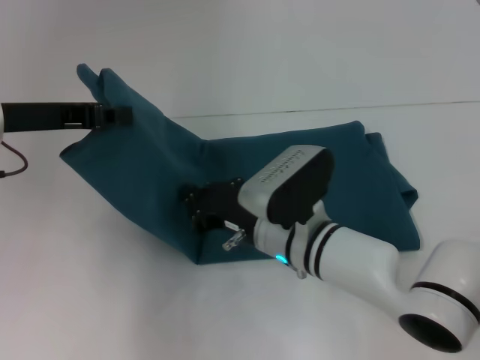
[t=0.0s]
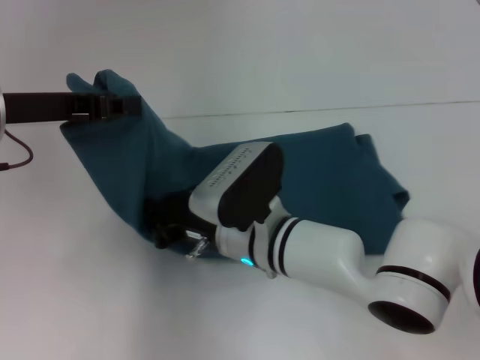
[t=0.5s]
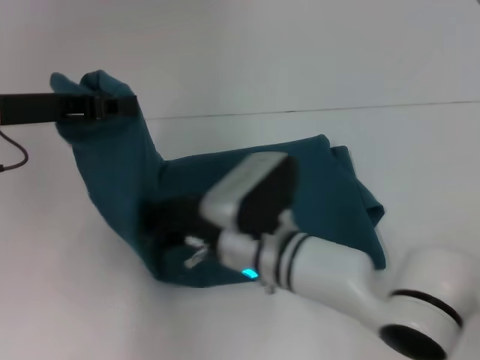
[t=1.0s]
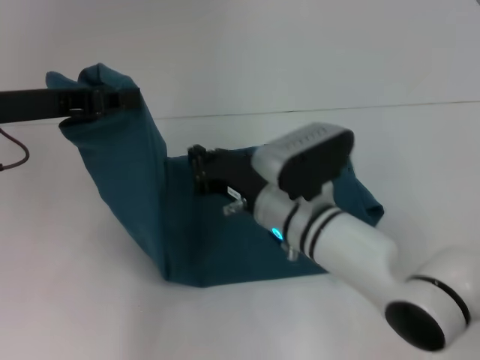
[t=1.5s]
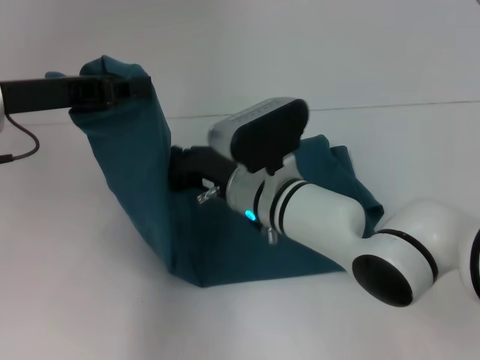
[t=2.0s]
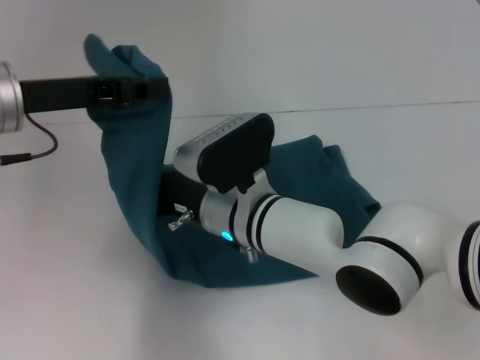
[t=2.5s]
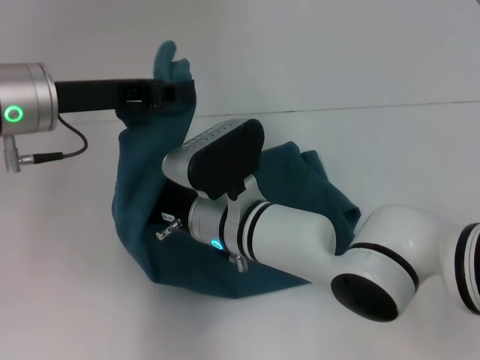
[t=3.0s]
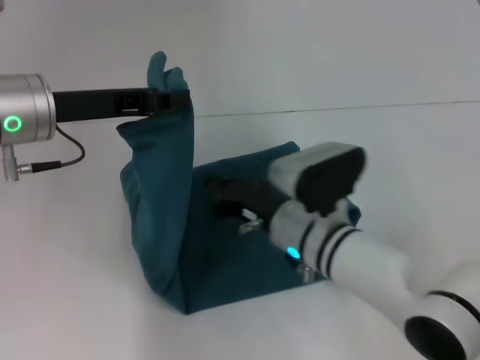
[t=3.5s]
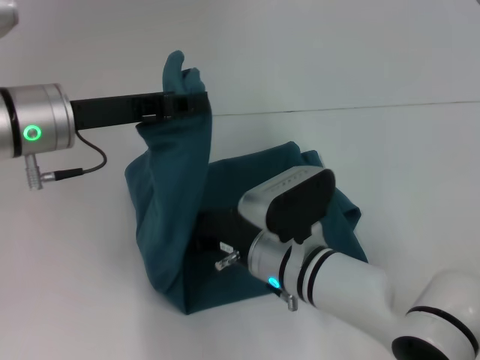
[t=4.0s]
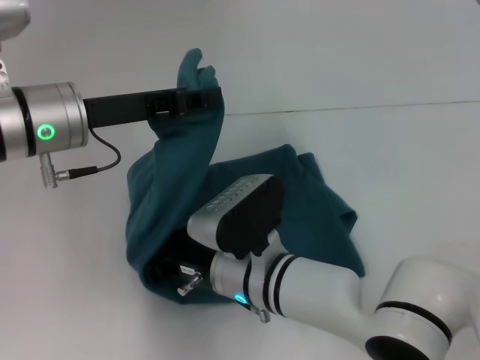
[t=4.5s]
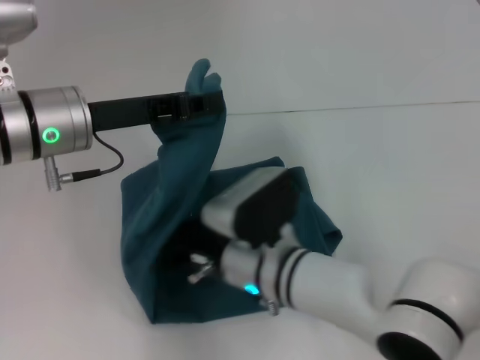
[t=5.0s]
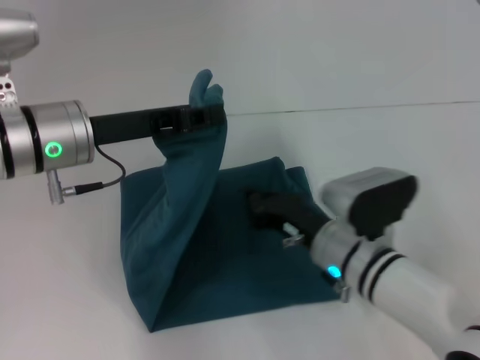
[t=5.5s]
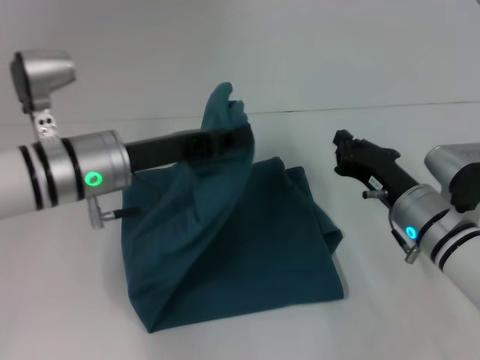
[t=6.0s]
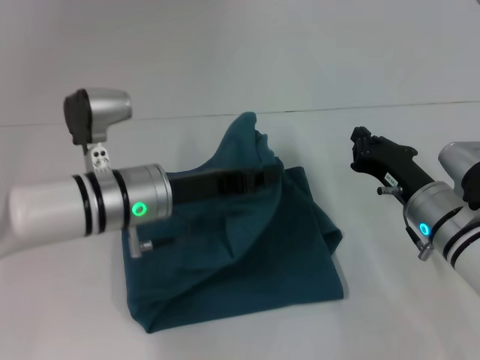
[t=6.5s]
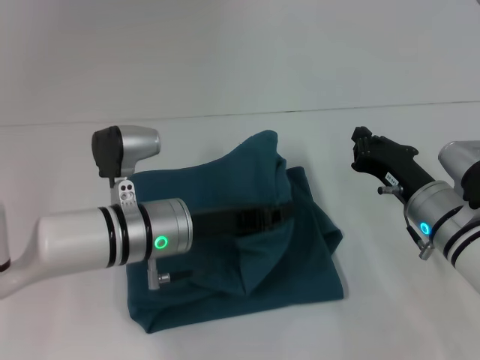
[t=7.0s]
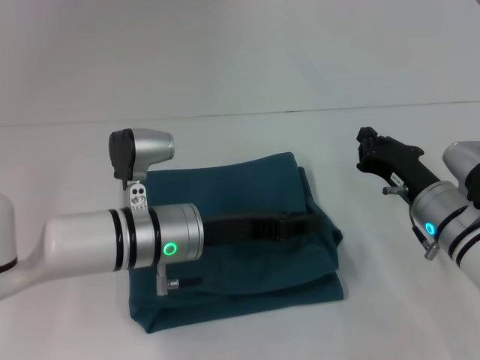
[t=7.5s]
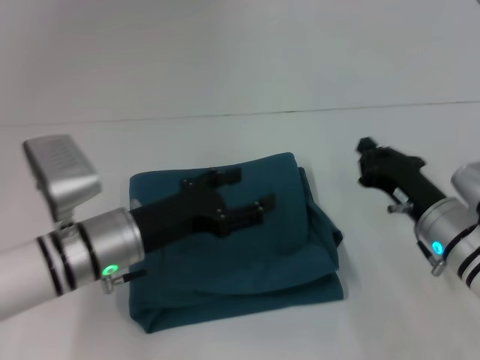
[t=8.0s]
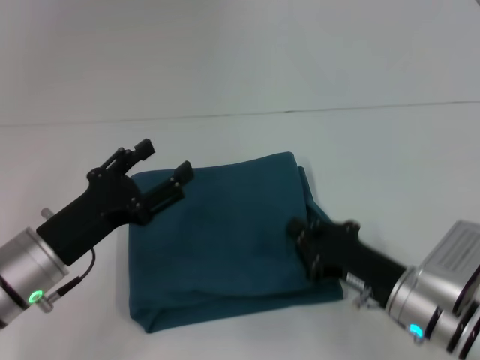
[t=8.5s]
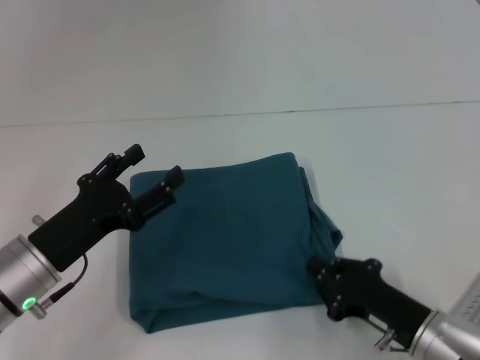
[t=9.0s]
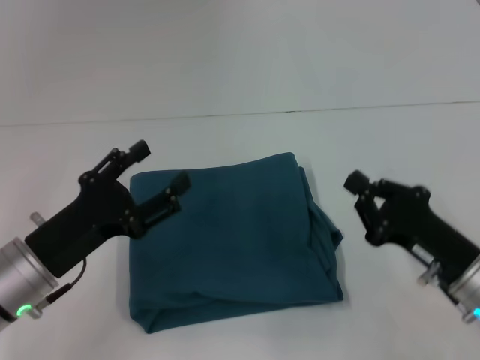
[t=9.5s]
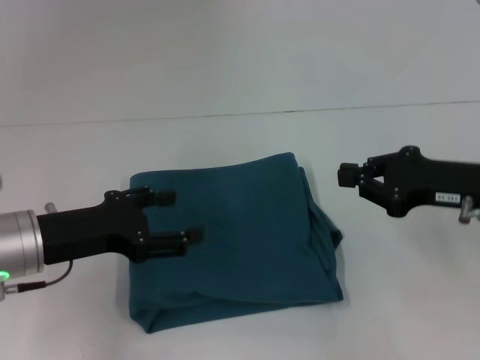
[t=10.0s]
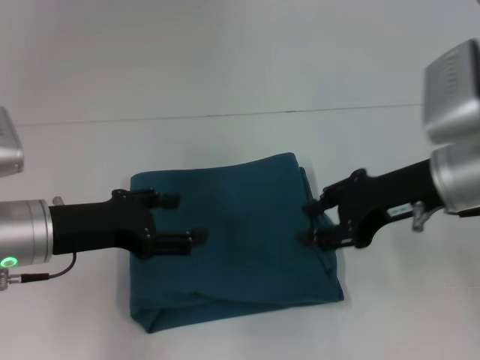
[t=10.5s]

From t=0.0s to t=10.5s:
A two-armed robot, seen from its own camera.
Step, from t=0.0s to t=5.0s: Press the middle of the clothes with your right hand.
Step, from t=5.5s to t=8.0s: Fold the clothes to the left.
From t=0.0s to t=2.0s: The right gripper ends up roughly 5 cm from where it was.
From t=2.0s to t=4.0s: The right gripper moves backward, about 5 cm; the left gripper shifts by approximately 5 cm.
From t=4.0s to t=6.5s: The right gripper heads to the right, covering some 15 cm; the left gripper travels downward and to the right by approximately 10 cm.
From t=6.5s to t=8.5s: The right gripper heads backward, covering approximately 10 cm. The left gripper heads to the left and backward, covering some 10 cm, and opens.
From t=8.5s to t=10.5s: The right gripper goes some 20 cm upward and forward, while the left gripper is displaced upward by some 5 cm.

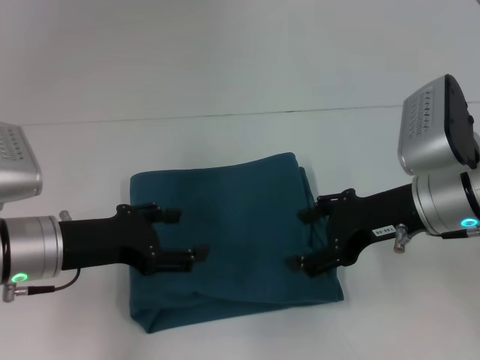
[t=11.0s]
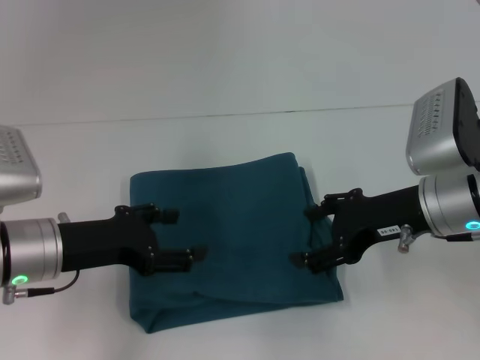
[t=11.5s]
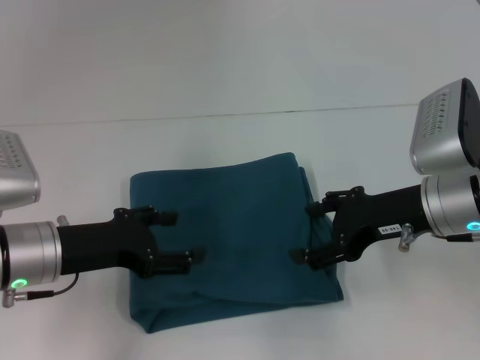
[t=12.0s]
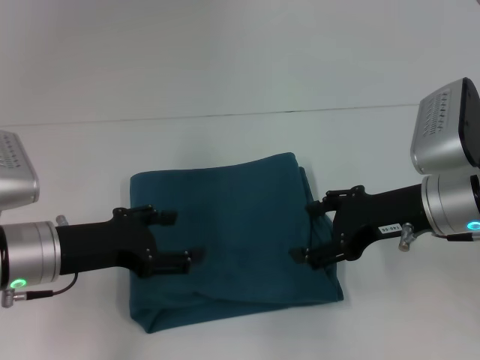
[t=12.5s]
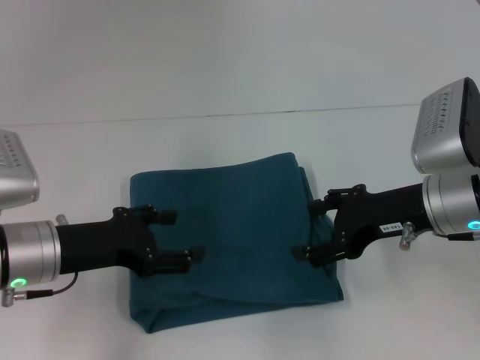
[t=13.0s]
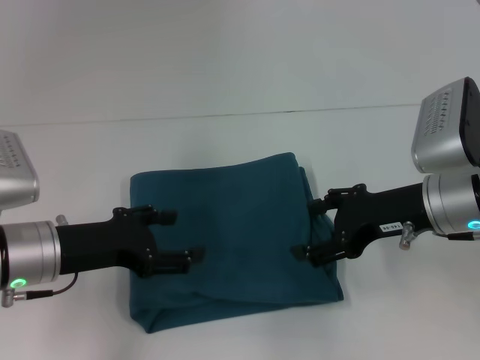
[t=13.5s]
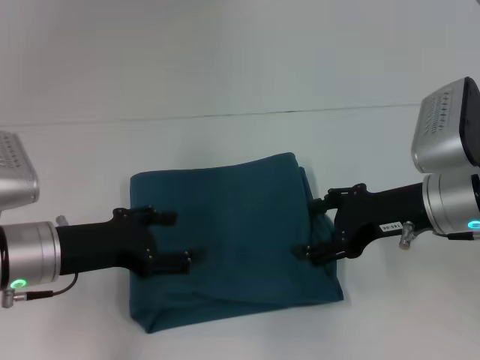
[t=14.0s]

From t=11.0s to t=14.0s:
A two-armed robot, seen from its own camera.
From t=11.0s to t=12.5s: The two grippers keep their place.
From t=12.5s to t=14.0s: Both grippers stay about where they are.

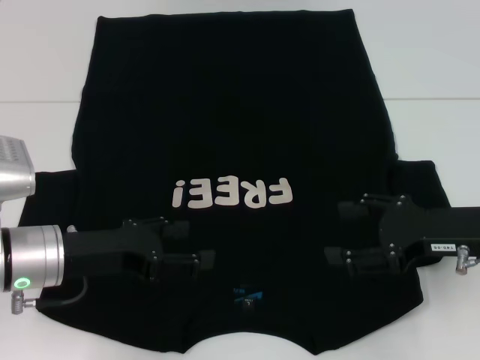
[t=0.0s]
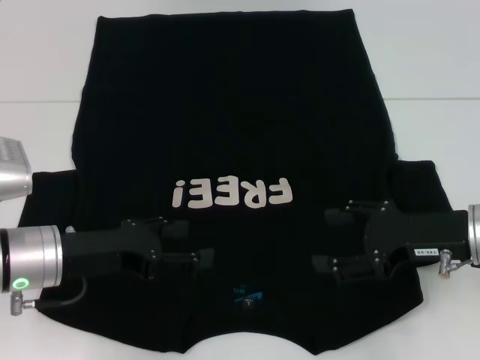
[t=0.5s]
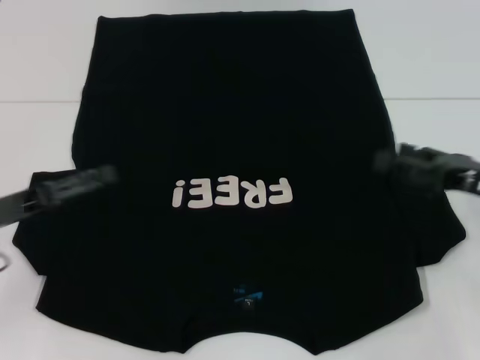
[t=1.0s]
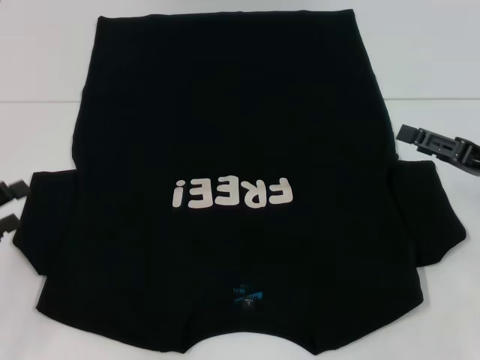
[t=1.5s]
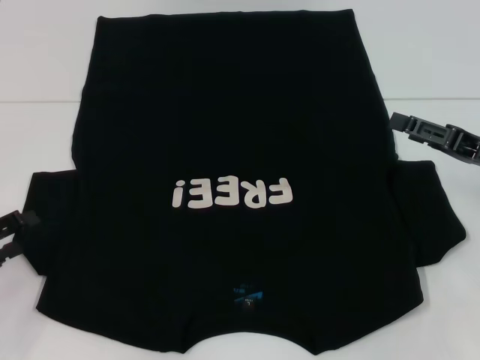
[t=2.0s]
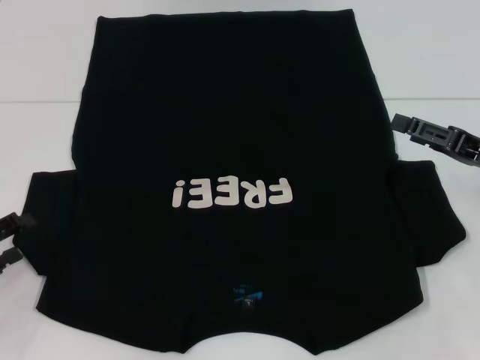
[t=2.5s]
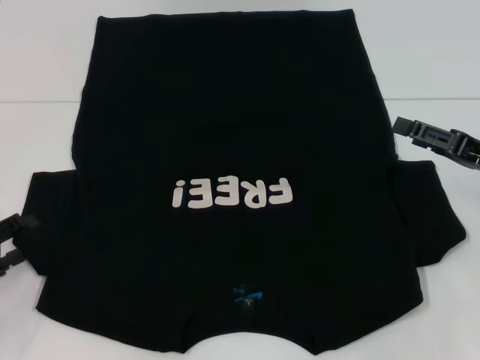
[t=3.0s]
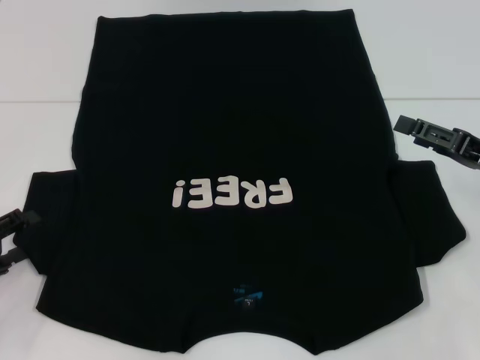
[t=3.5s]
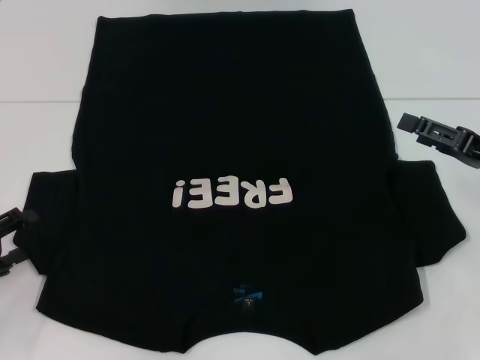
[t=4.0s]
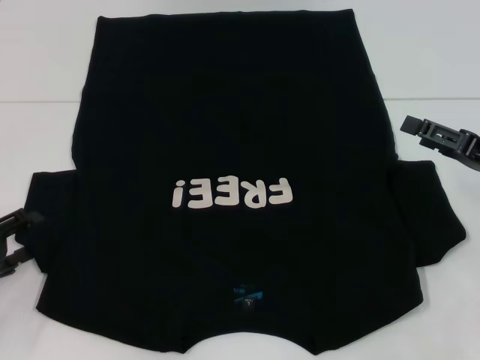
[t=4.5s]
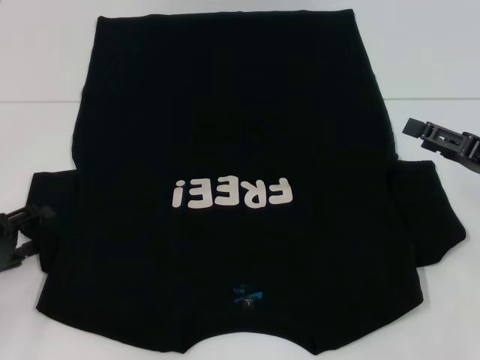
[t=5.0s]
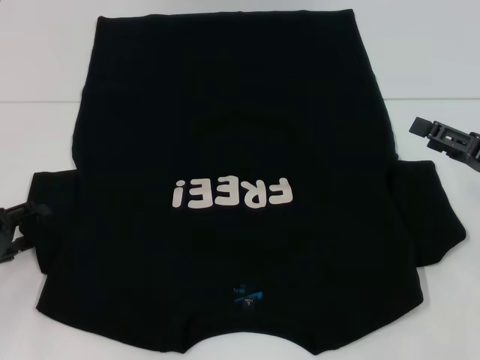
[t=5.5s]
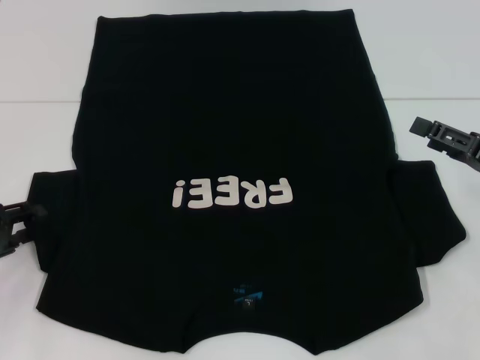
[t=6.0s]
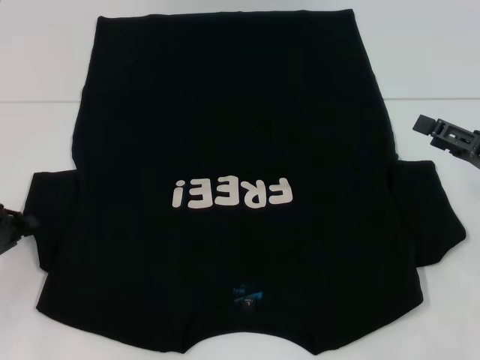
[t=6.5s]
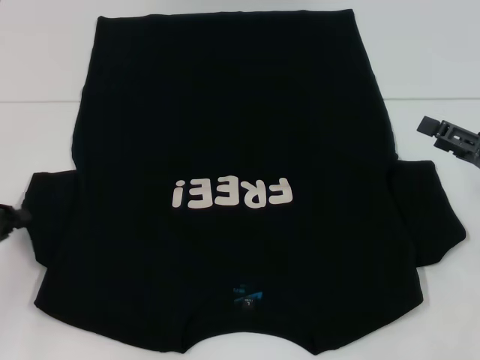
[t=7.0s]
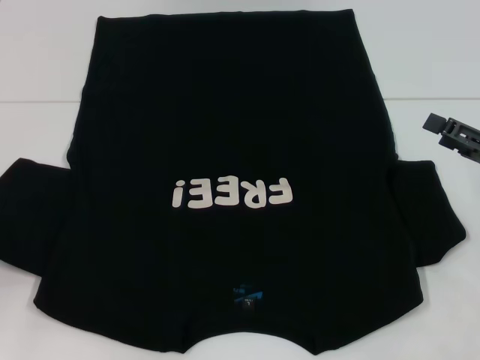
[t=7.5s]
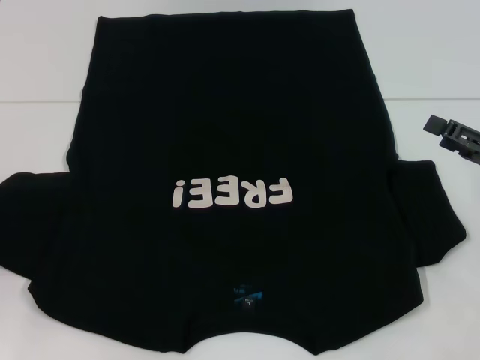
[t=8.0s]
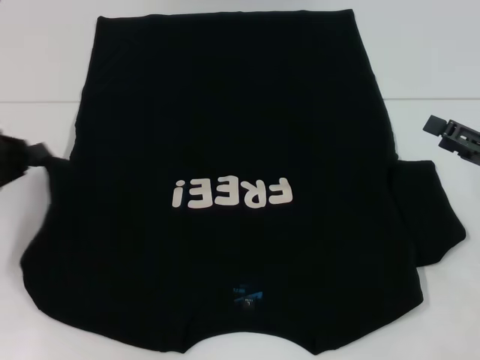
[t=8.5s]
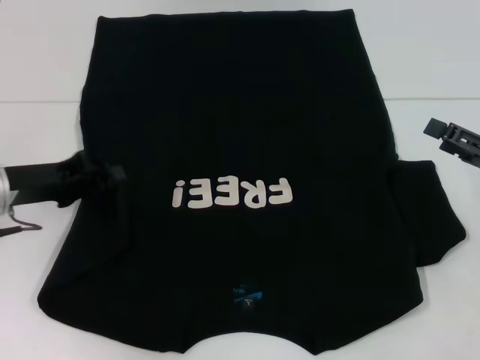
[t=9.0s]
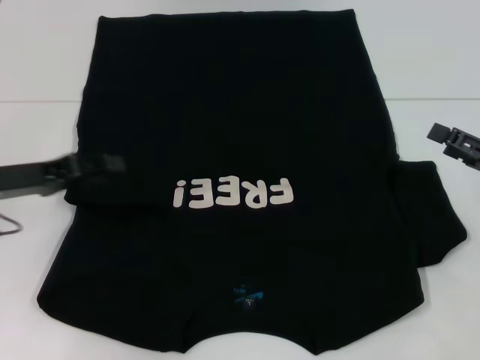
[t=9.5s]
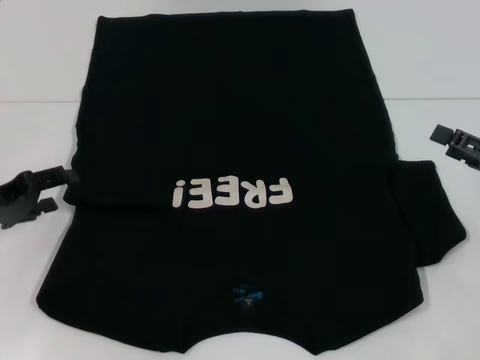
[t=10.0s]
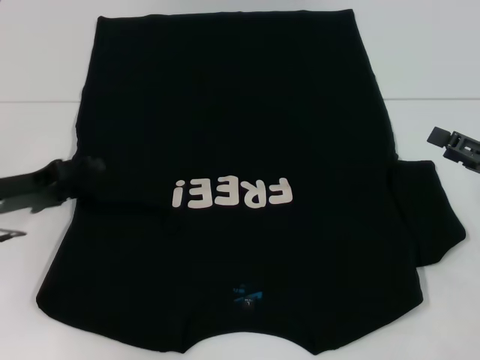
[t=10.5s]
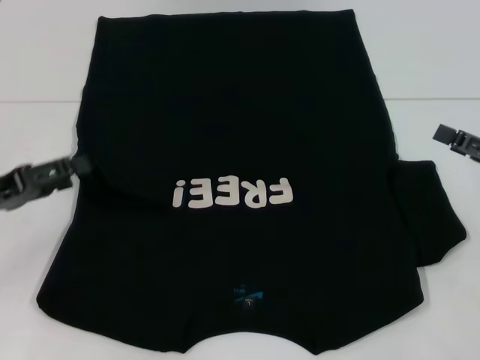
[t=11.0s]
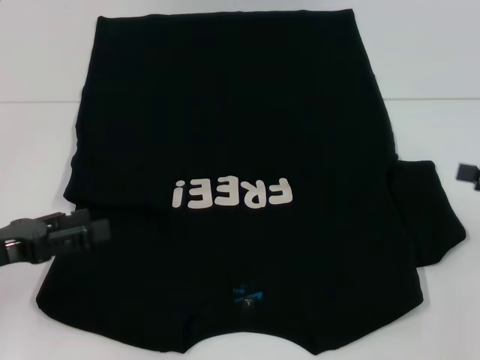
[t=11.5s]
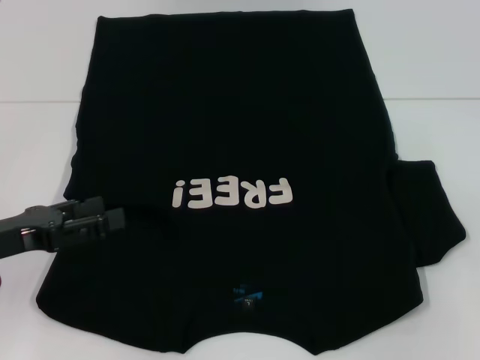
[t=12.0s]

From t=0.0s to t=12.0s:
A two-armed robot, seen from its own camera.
Step, from t=0.0s to t=9.0s: Fold the bottom left sleeve with your left hand.
From t=0.0s to t=2.0s: The right gripper moves to the right, some 5 cm, while the left gripper is displaced to the left by some 15 cm.
From t=2.0s to t=6.0s: The grippers stay close to where they were, moving slightly.
From t=6.0s to t=8.0s: The left gripper moves to the left, approximately 5 cm, and closes up.
From t=8.0s to t=10.0s: The left gripper goes roughly 5 cm to the right, and opens.
From t=10.0s to t=12.0s: The right gripper goes about 10 cm upward and to the right. The left gripper shifts by some 5 cm.
